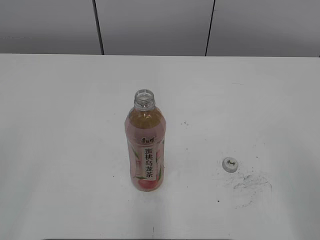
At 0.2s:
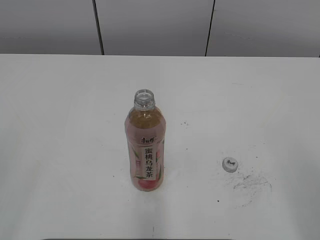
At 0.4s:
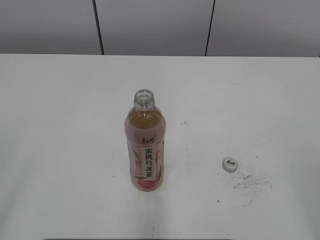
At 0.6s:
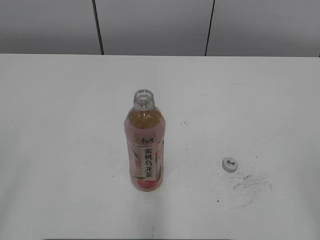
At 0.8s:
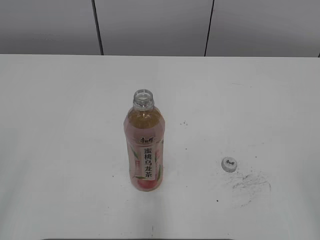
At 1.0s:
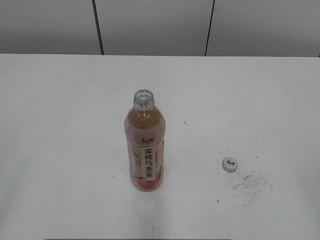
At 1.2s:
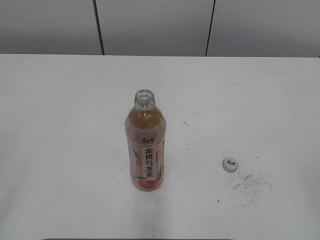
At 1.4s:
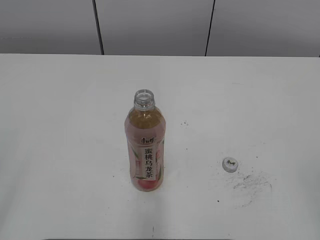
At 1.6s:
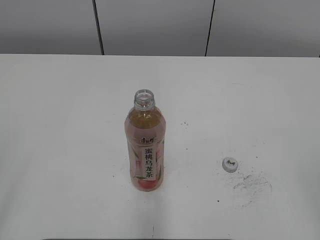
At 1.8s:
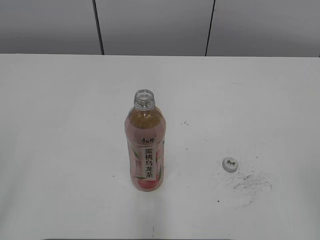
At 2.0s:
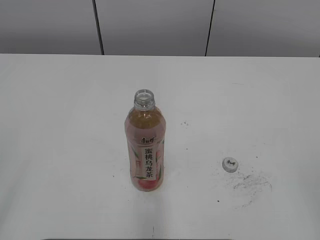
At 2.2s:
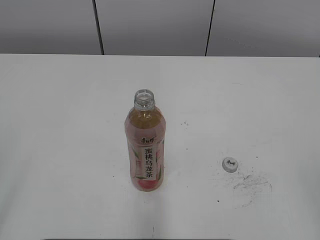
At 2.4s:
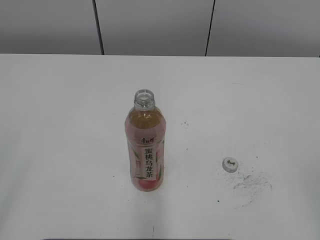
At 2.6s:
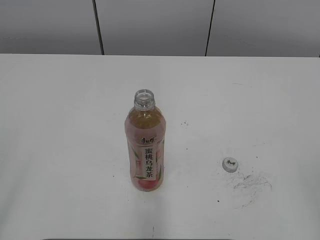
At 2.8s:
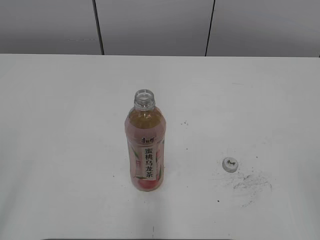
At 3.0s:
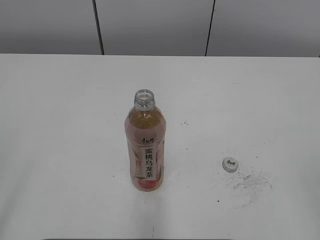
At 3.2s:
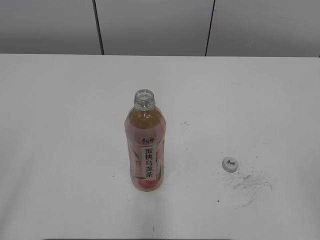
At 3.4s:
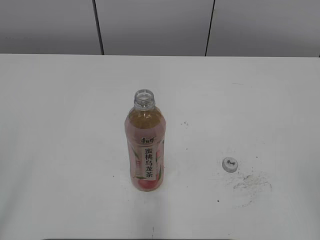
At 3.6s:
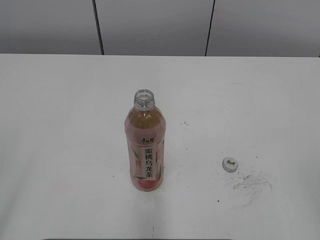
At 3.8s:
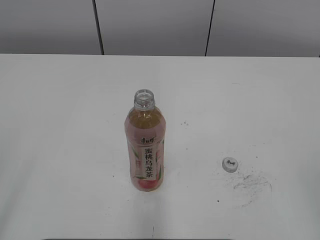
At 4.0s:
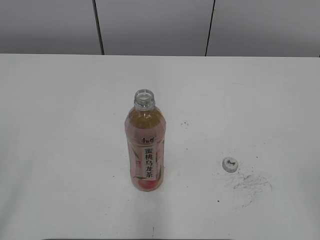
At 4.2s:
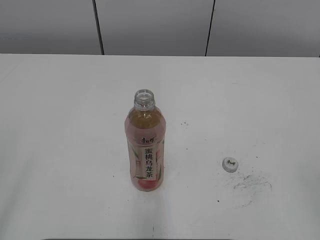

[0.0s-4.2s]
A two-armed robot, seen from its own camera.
1.4s to 4.2s: Neither gripper changes place.
